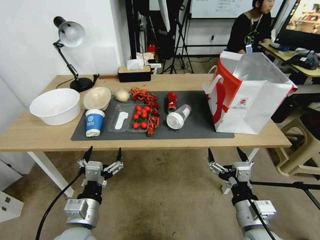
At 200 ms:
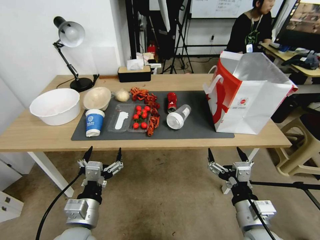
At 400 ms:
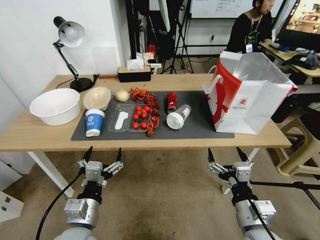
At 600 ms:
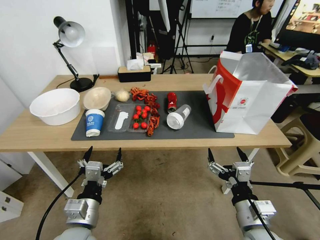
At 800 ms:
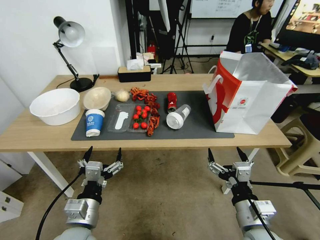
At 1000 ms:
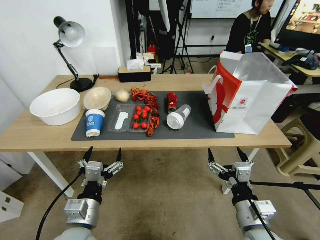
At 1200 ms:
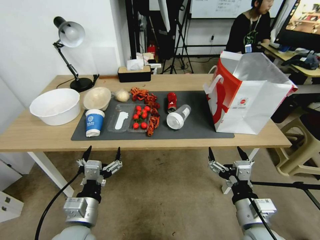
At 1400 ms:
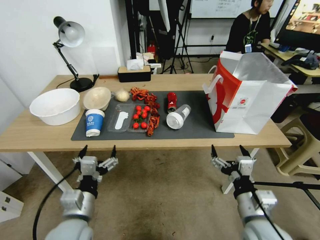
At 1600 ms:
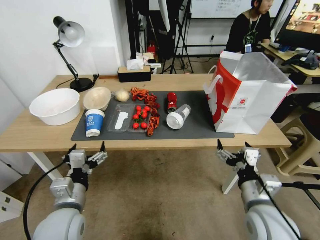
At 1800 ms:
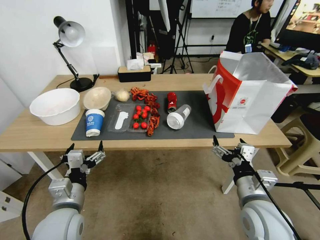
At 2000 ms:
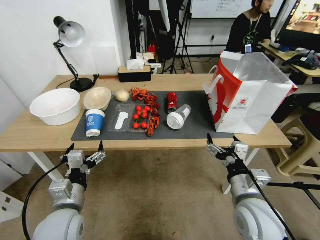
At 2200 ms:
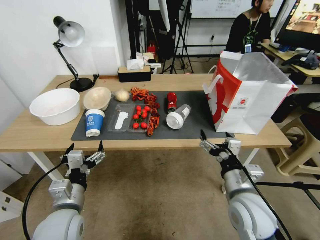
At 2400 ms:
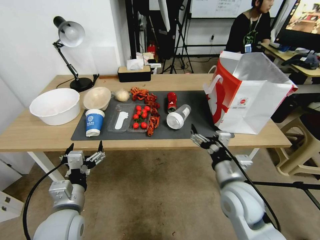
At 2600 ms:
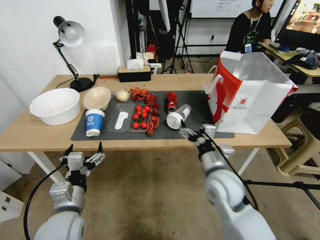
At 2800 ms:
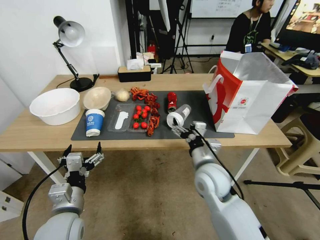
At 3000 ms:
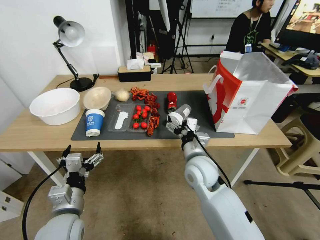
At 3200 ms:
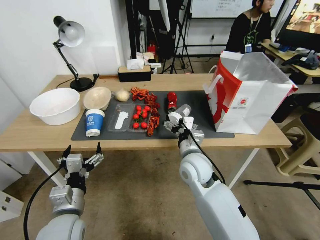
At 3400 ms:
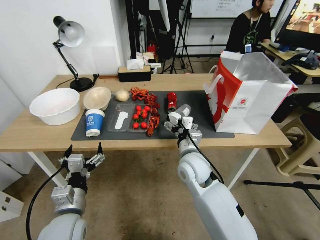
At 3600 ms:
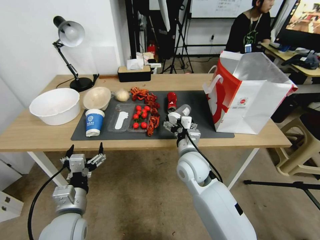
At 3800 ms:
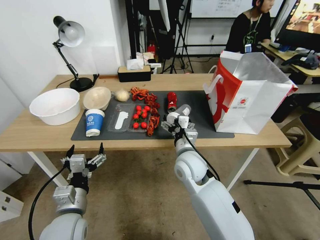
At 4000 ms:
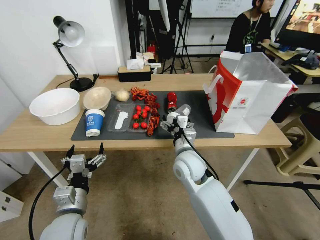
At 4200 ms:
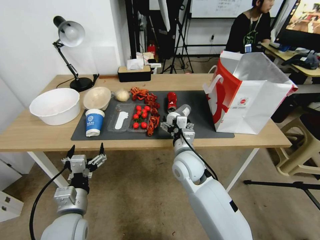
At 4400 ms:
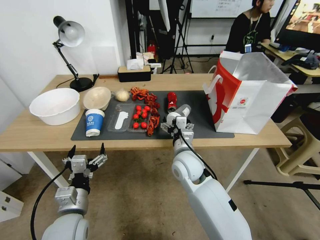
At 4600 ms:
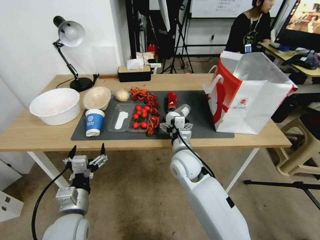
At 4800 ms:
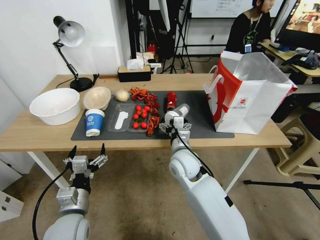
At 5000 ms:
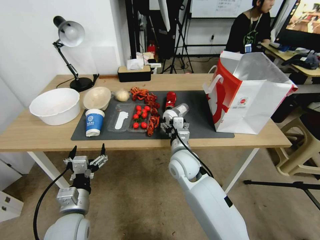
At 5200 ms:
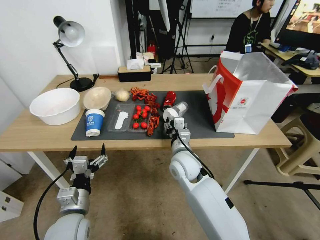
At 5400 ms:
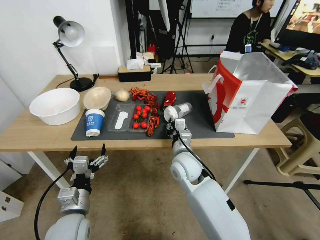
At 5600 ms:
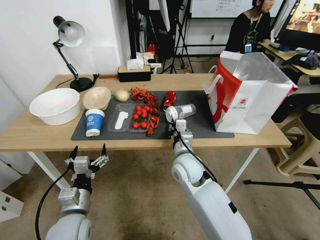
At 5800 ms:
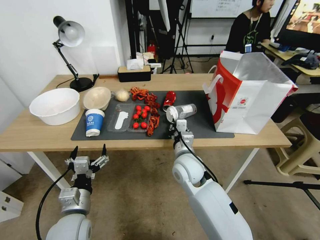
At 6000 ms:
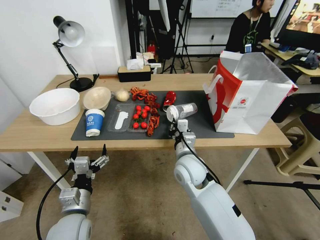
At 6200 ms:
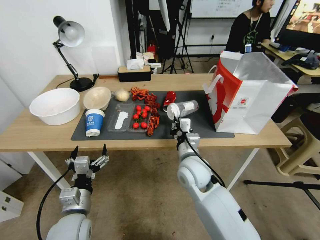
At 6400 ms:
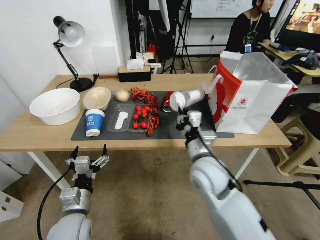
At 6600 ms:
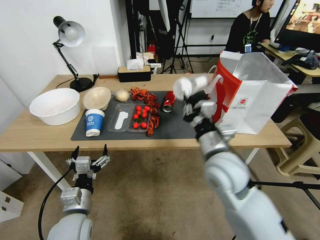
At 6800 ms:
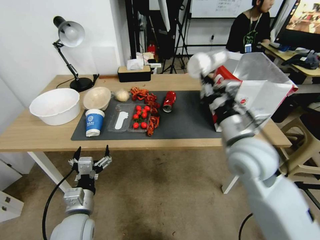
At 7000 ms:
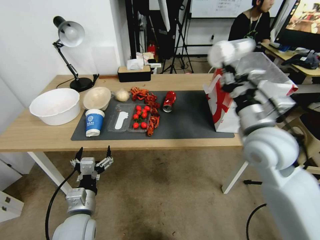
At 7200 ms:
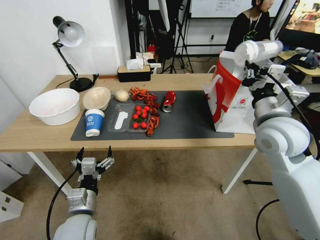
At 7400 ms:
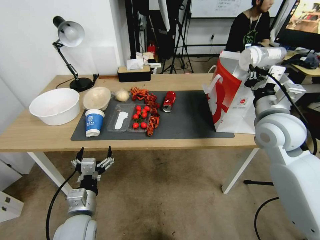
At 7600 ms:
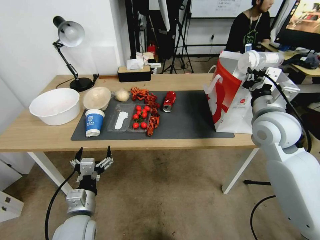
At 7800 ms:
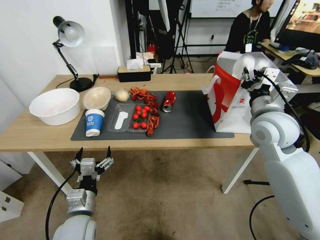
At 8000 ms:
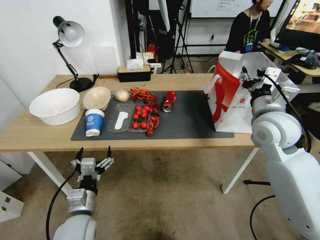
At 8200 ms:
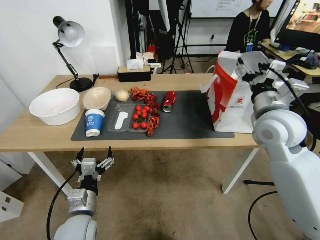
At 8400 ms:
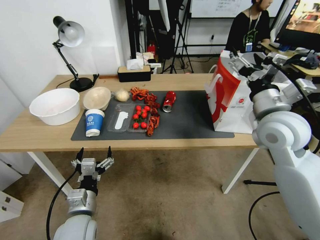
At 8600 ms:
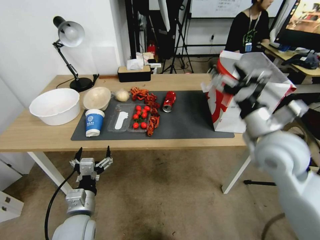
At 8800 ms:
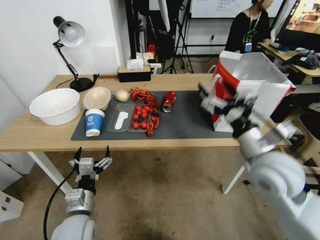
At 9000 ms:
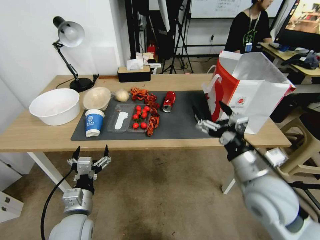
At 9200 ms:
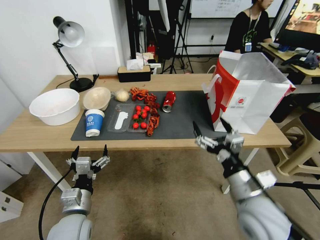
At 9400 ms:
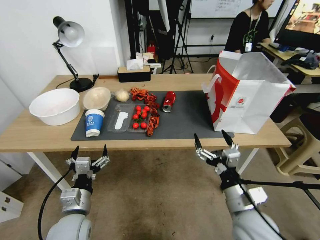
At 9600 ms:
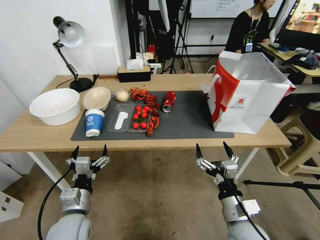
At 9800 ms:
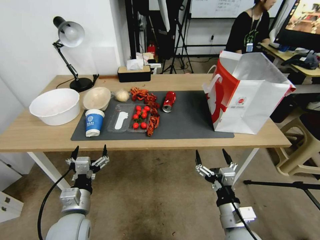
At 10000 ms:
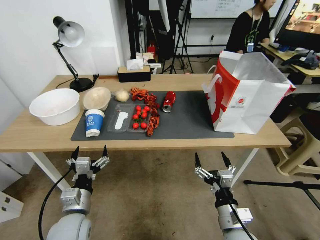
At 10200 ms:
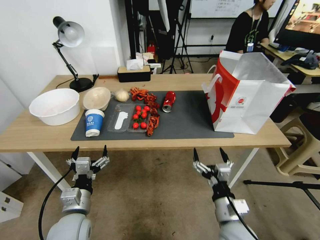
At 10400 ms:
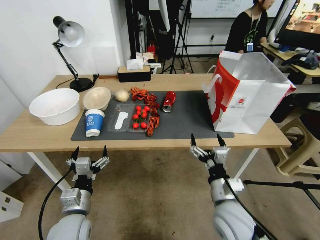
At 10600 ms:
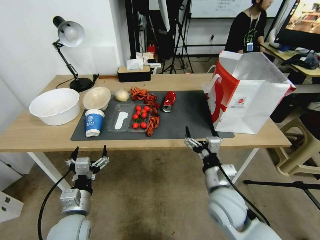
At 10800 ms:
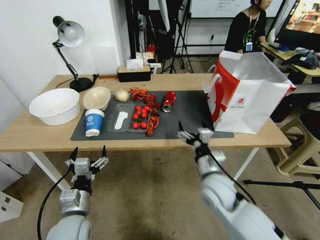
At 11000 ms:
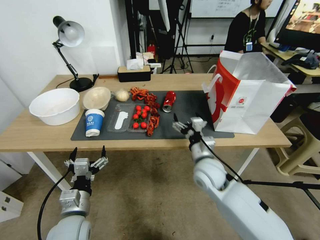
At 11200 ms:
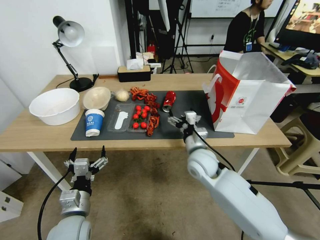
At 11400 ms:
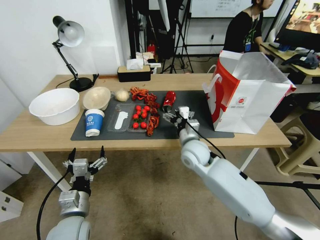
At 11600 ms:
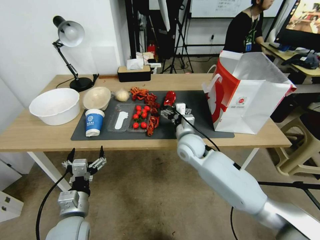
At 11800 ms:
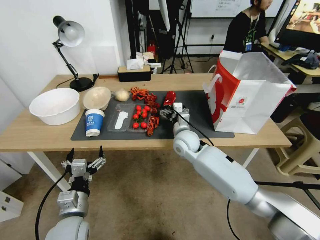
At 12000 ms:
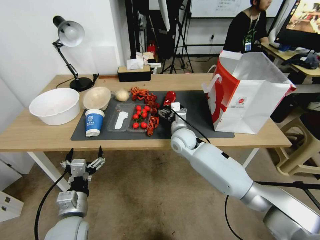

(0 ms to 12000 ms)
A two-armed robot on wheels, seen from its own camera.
1600 ms - 3000 ms: The right gripper travels forward and to the left by roughly 20 cm.
3000 ms - 4400 ms: There are only small adjustments of the grippers.
4400 ms - 6000 ms: The right gripper closes its fingers.
6000 ms - 7600 ms: The right gripper goes about 25 cm to the right and upward.
7600 ms - 9000 ms: The right gripper is displaced backward and downward by about 15 cm, and opens.
9000 ms - 10400 ms: The right gripper shifts some 15 cm downward.
10400 ms - 12000 ms: The right gripper is displaced forward by some 25 cm.

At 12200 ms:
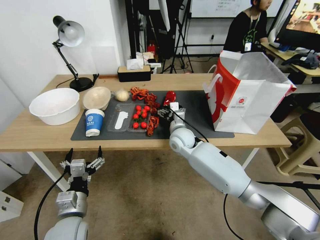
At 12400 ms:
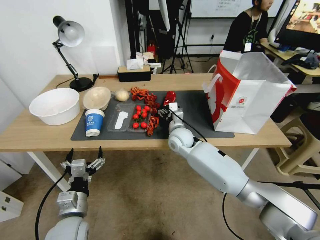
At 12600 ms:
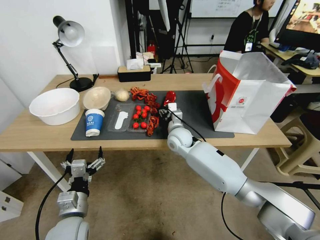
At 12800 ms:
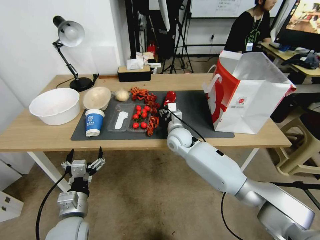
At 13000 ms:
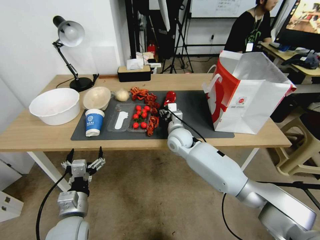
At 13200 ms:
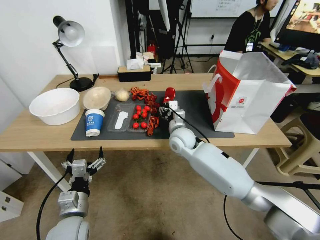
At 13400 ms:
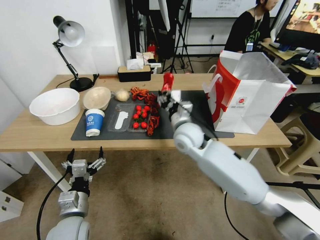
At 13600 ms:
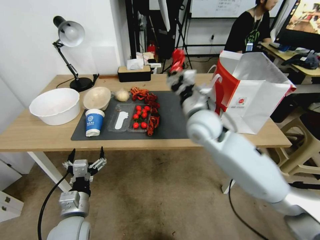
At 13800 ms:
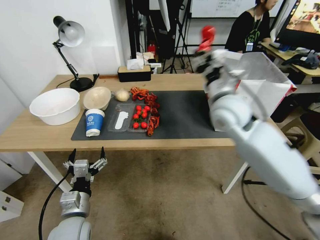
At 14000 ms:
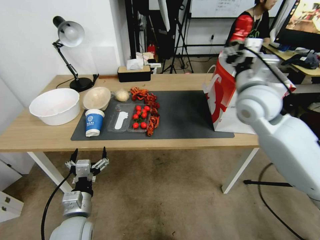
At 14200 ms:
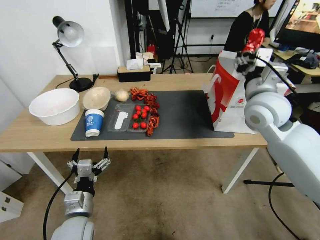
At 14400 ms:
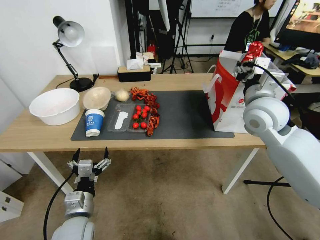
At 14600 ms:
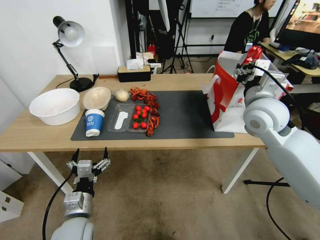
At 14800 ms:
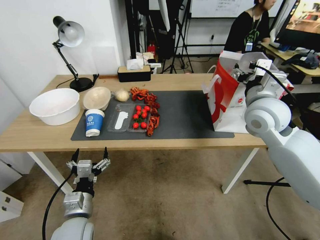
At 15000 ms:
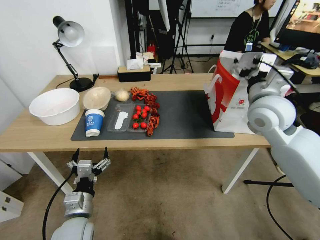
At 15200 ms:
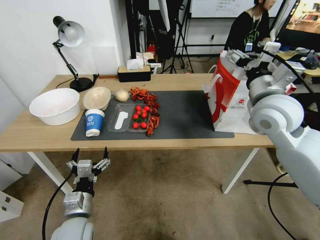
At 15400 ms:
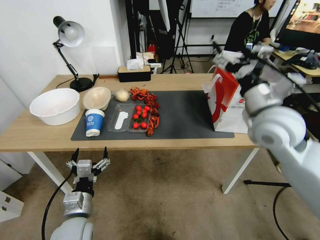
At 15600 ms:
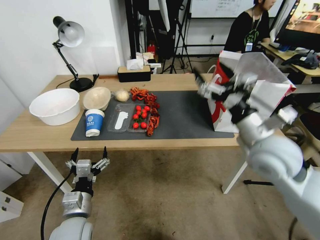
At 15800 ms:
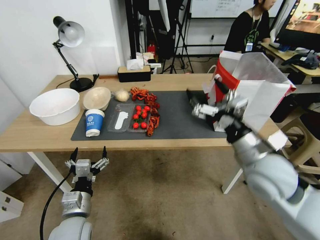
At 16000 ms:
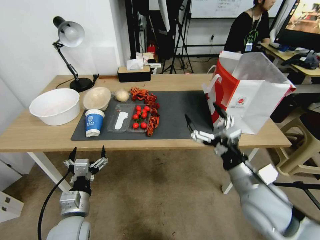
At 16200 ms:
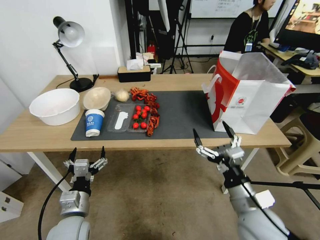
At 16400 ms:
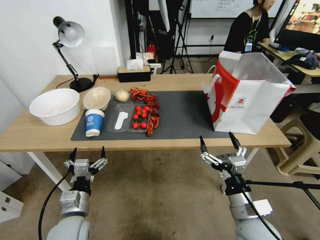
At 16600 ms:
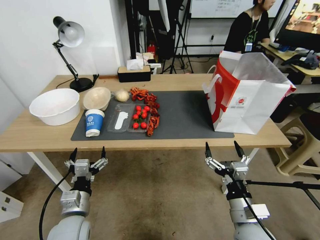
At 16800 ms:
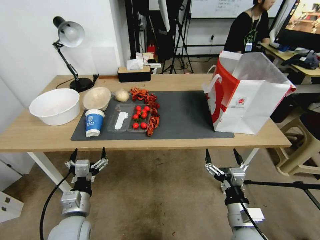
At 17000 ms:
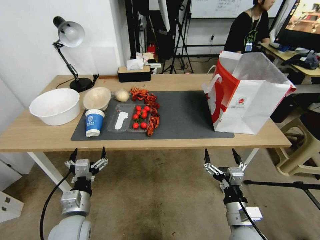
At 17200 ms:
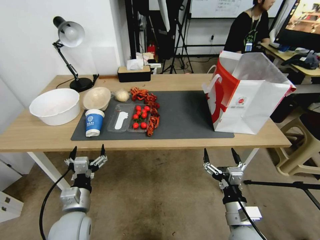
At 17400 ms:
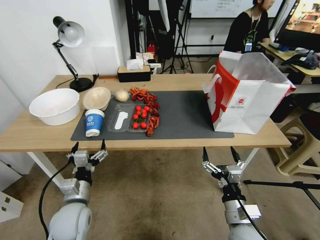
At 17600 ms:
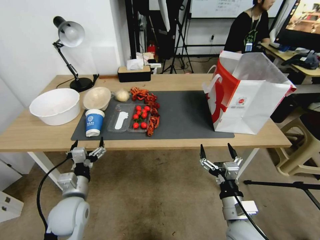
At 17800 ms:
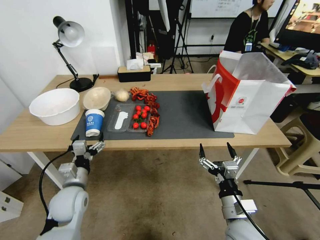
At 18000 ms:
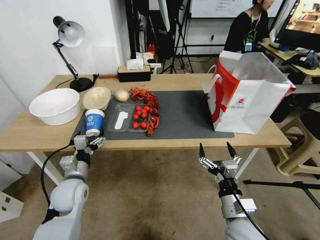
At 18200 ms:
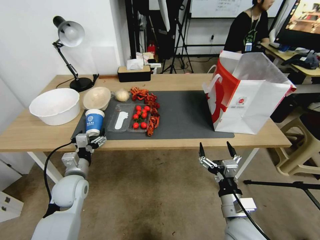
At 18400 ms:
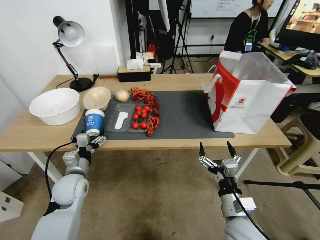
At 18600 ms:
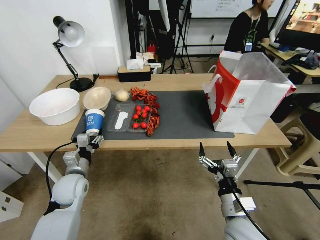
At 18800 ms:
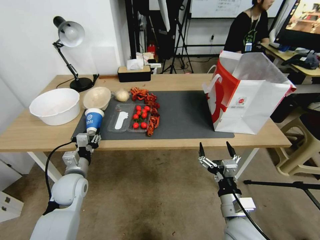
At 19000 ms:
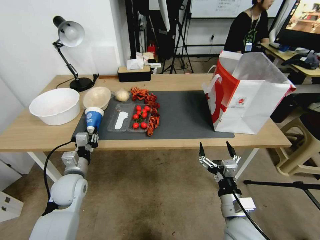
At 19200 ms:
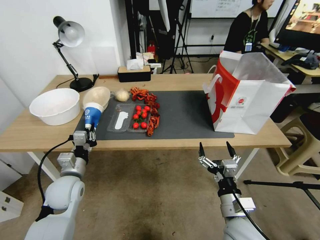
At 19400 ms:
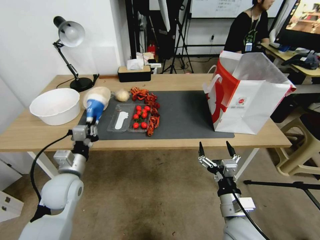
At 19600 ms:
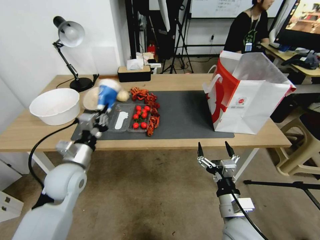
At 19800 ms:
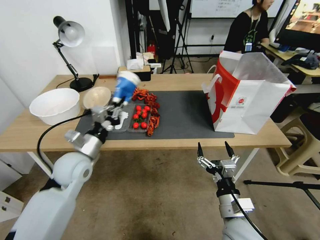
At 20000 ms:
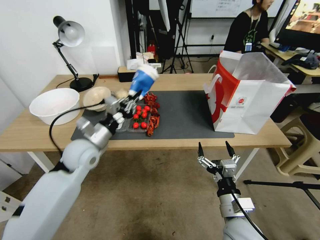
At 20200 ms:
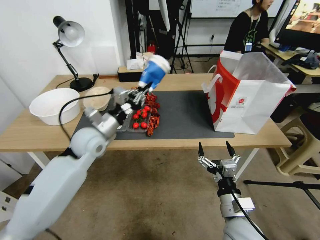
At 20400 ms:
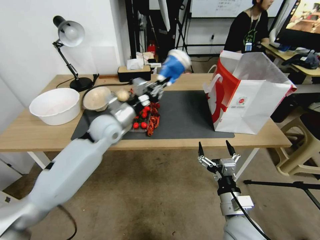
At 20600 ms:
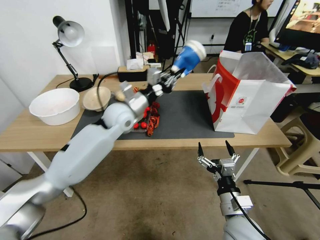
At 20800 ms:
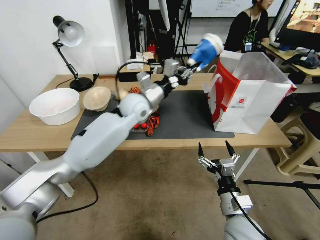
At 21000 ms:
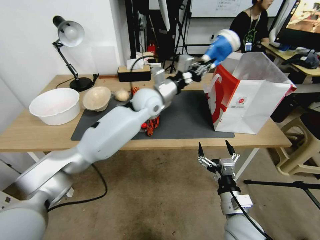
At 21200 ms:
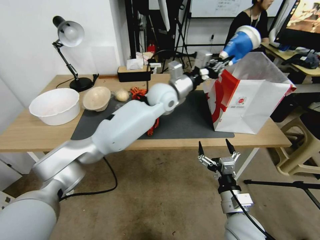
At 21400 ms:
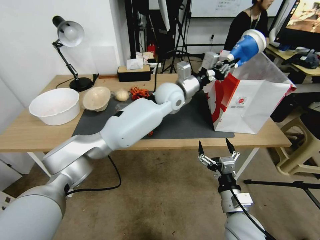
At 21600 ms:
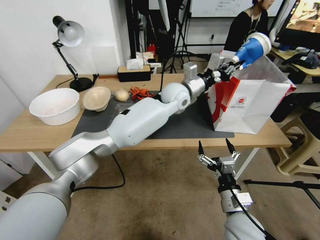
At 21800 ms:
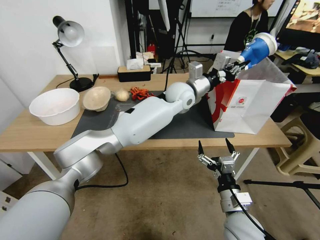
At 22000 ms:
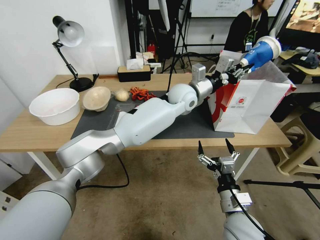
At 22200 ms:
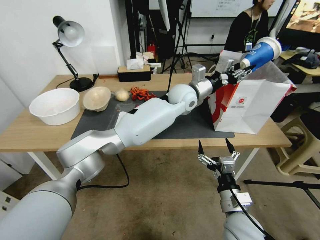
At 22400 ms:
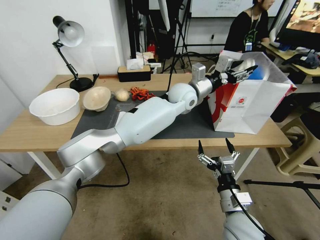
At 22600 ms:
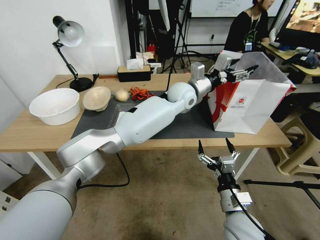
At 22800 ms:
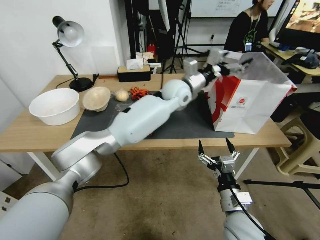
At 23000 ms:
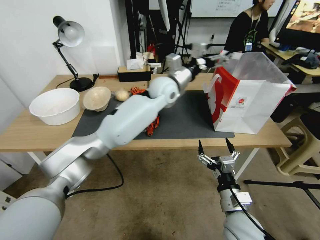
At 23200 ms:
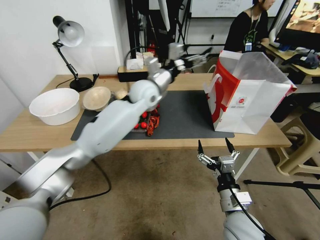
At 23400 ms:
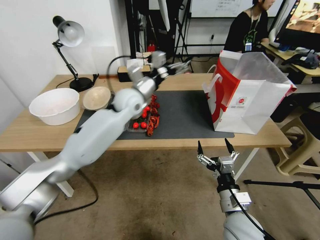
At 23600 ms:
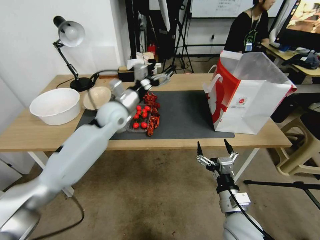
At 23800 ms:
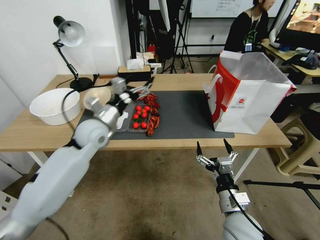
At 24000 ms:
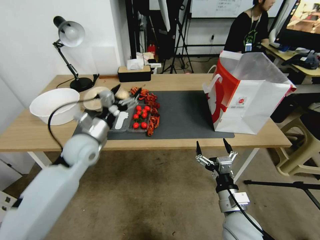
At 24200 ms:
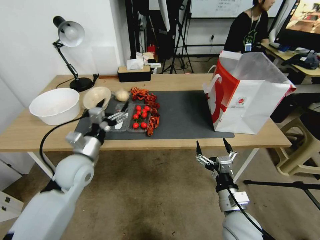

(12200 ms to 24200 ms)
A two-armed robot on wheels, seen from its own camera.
12200 ms - 13800 ms: The right gripper moves upward and to the right, about 25 cm, and closes.
13800 ms - 15200 ms: The right gripper heads to the right, covering about 10 cm, and opens.
15200 ms - 16600 ms: The right gripper travels downward and backward by some 35 cm.
16600 ms - 18200 ms: The left gripper goes about 10 cm forward.
18200 ms - 19800 ms: The left gripper goes about 10 cm upward, and closes its fingers.
19800 ms - 21200 ms: The left gripper heads to the right, forward and upward, covering about 35 cm.
21200 ms - 22600 ms: The left gripper moves to the right, approximately 5 cm, and opens up.
22600 ms - 24200 ms: The left gripper goes roughly 40 cm to the left and backward.
